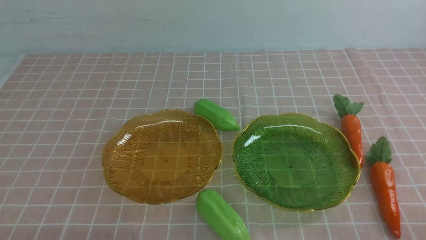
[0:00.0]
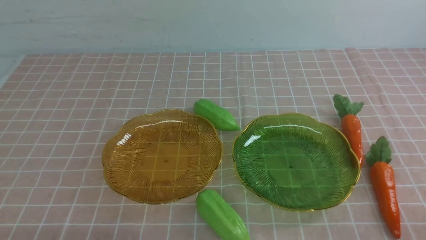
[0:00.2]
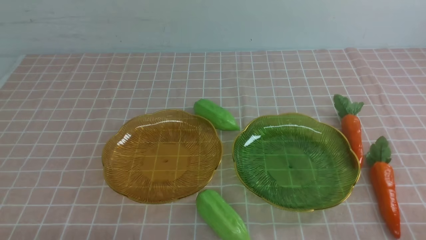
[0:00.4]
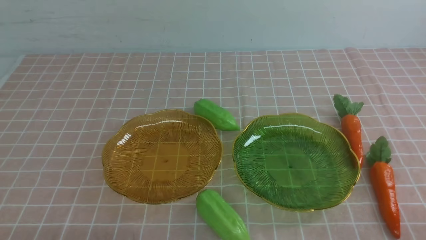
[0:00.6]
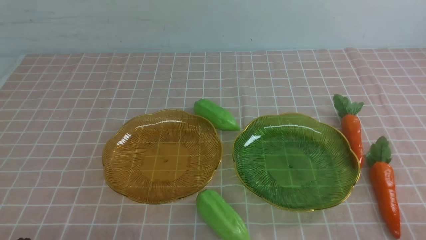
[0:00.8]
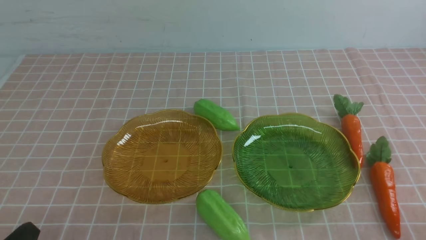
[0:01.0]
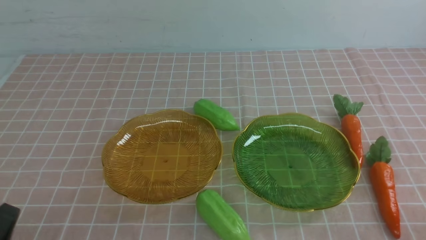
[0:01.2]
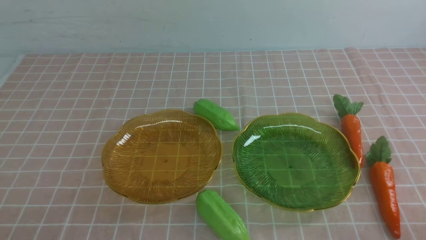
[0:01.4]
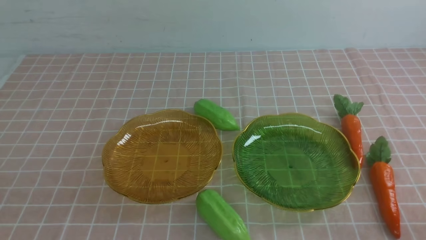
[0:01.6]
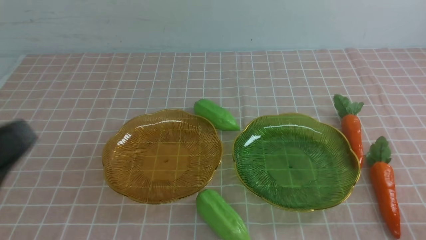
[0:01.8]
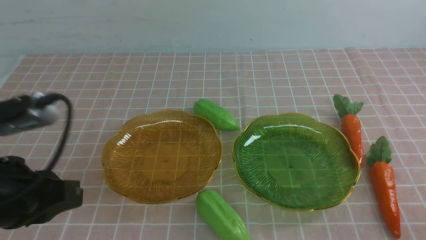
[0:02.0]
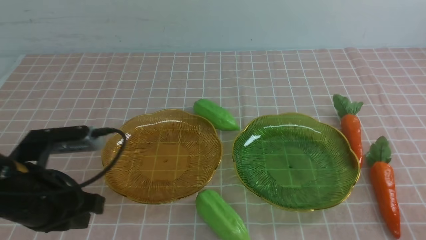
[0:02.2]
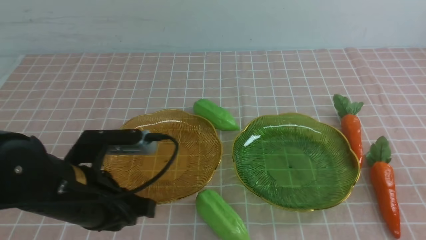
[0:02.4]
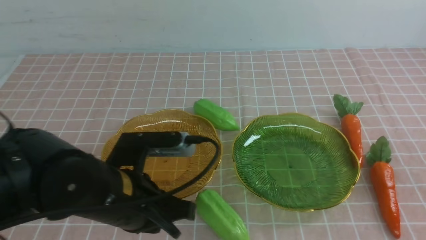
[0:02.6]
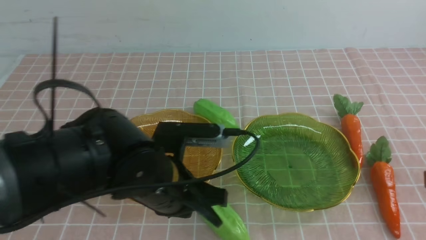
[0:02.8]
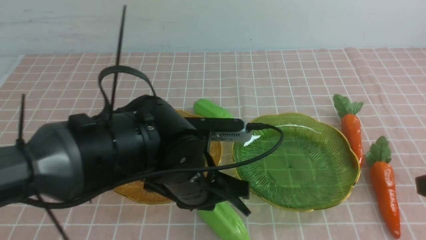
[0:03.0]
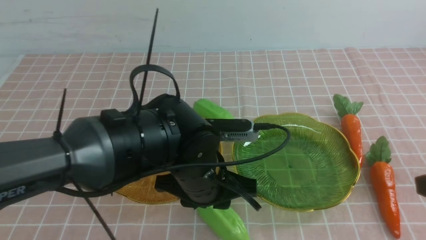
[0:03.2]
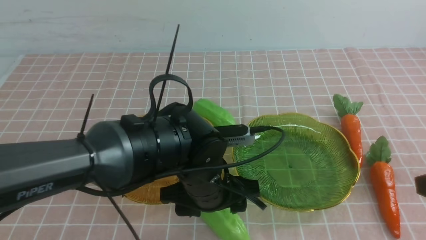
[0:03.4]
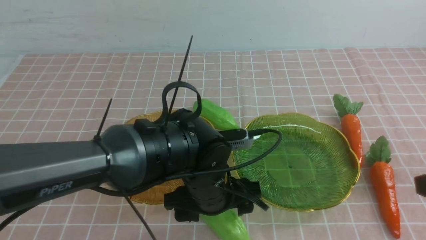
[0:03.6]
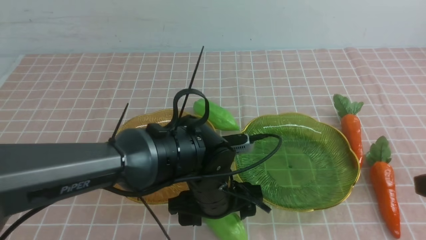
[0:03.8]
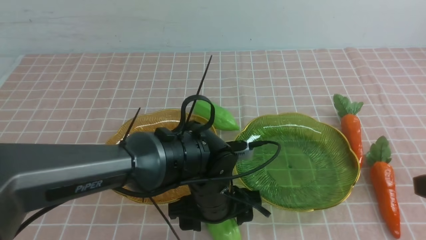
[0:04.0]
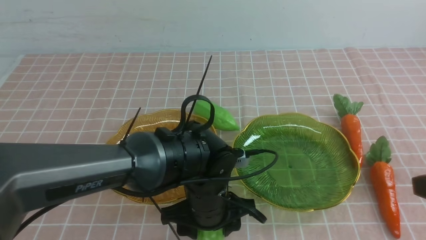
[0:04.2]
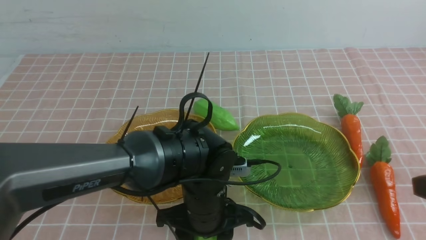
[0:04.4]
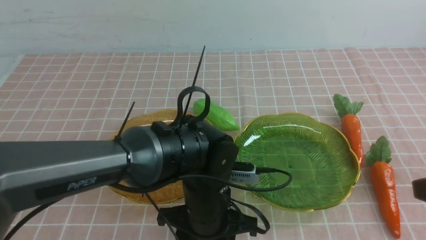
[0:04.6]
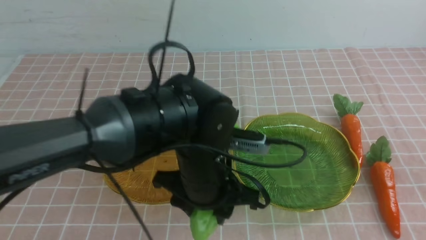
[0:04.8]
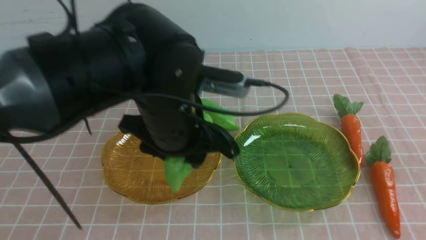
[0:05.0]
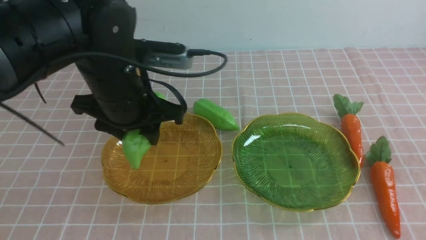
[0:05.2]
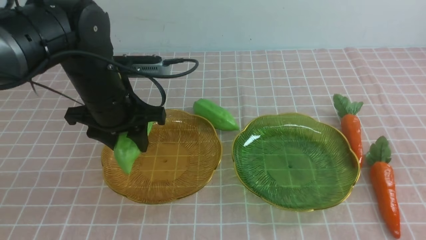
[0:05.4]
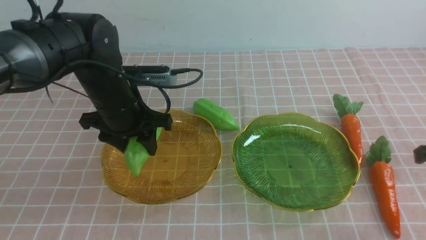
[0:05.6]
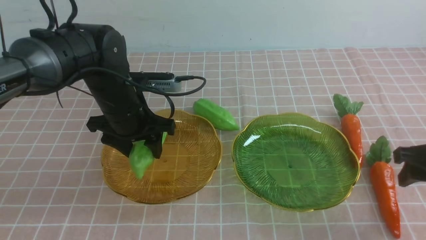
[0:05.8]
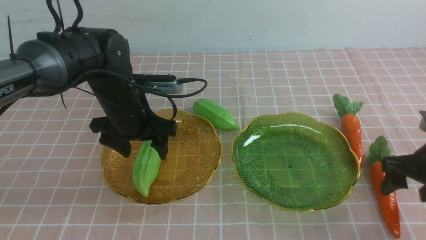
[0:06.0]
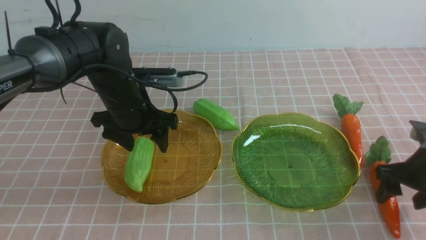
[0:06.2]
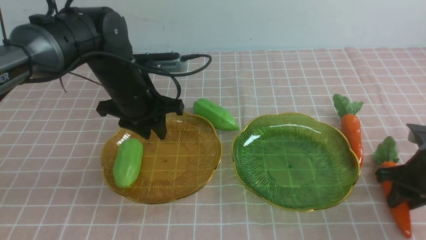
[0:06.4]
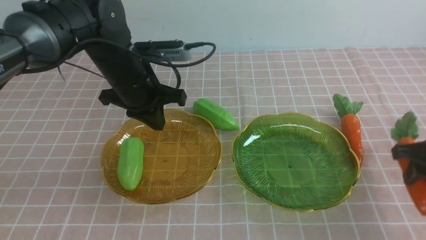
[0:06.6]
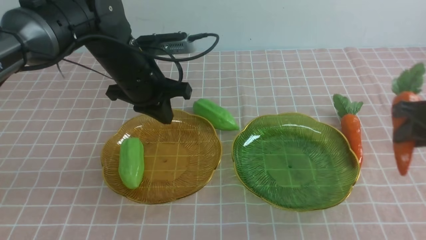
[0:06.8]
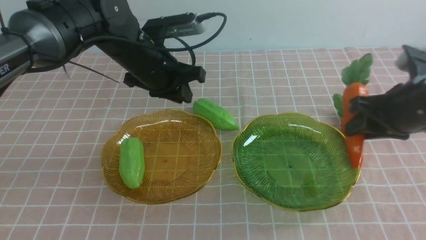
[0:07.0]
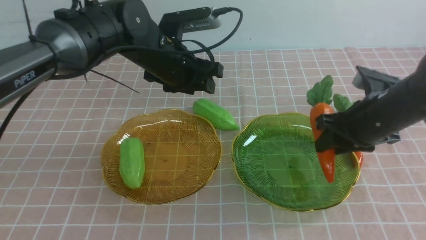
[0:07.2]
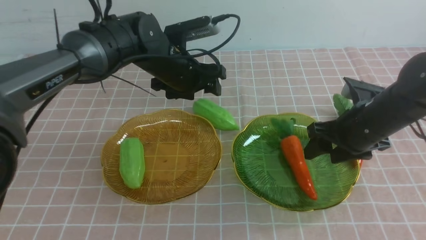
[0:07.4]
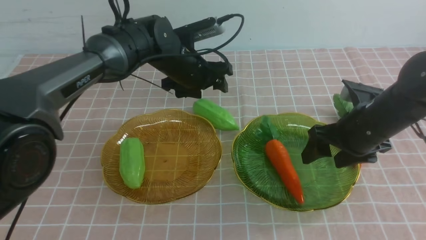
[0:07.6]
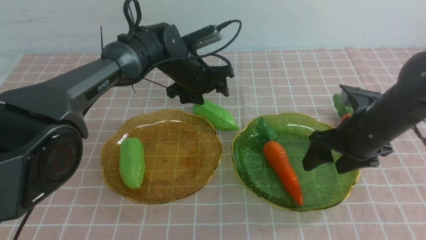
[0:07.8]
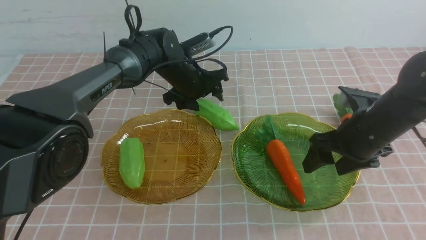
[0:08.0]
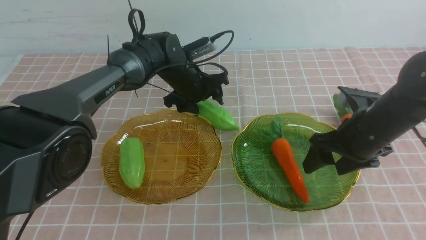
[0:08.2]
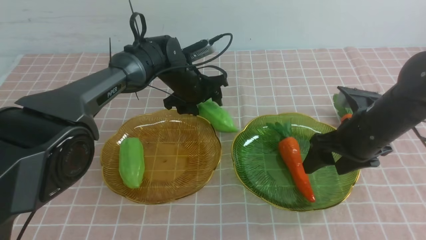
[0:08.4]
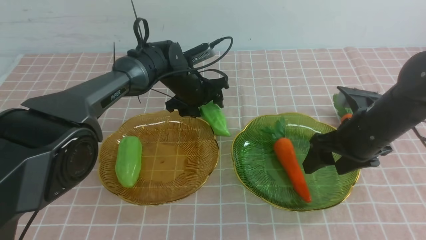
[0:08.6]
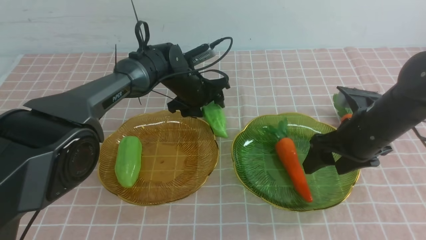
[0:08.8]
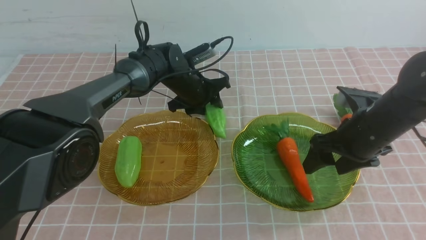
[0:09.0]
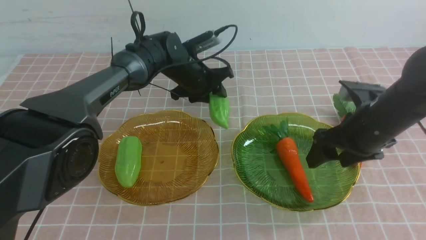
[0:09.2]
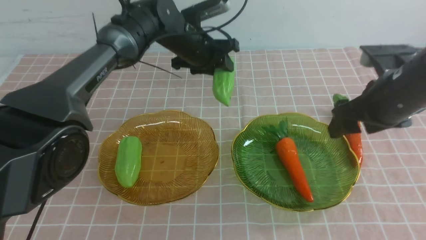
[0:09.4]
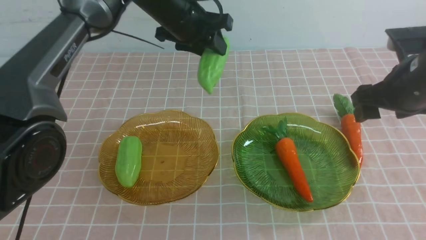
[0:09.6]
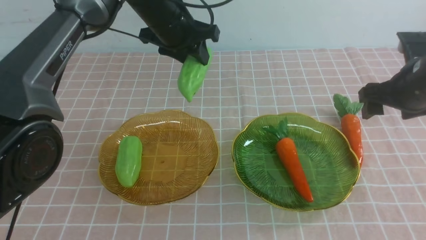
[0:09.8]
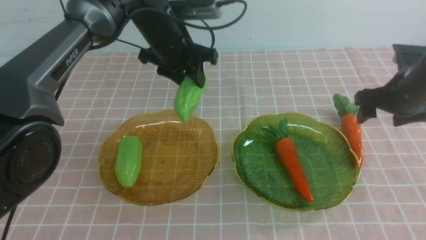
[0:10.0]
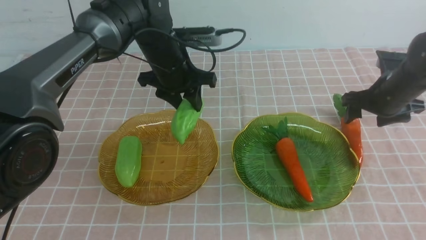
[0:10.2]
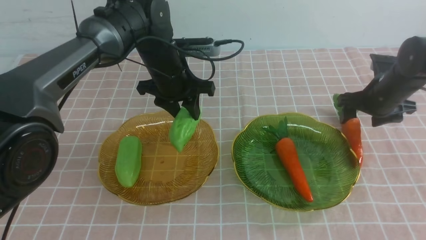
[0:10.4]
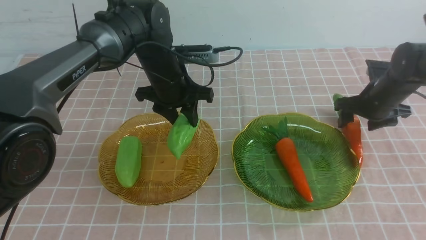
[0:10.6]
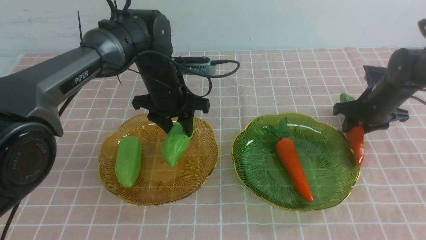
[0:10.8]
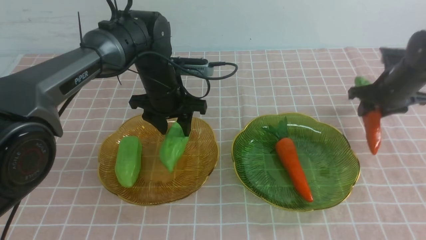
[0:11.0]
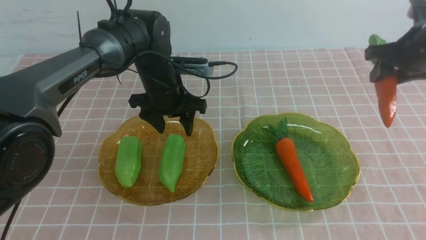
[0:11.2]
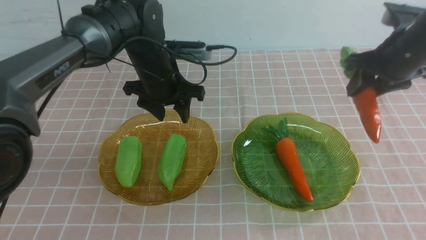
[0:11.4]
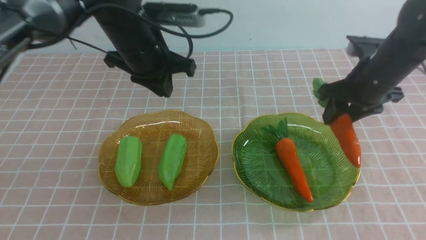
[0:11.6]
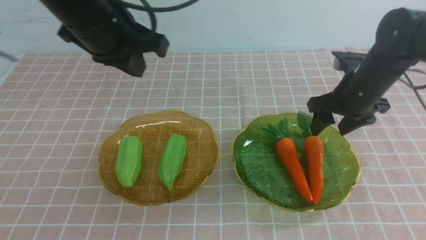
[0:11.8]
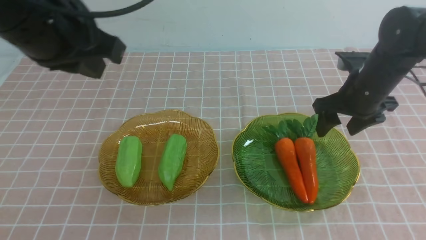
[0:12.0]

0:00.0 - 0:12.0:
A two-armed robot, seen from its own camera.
Step, 0:00.0 - 0:05.8: use the left arm to grab a chayote and put it into the left plate.
Step, 0:06.0 - 0:07.2: use the right arm to grab a carrot and put it into the right plate.
Step, 0:07.4 - 0:10.0: use the left arm to grab a chayote and put it into the left plate.
Step, 0:10.2 - 0:11.8: use the right arm to grab a carrot and put it into the right plate.
0:01.6 - 0:03.0: The left gripper goes approximately 30 cm to the right, forward and downward, and opens. Meanwhile the right gripper shifts approximately 15 cm upward and forward.
0:03.0 - 0:04.4: The left gripper travels upward by roughly 5 cm, and opens, then closes again.
0:04.4 - 0:06.0: The right gripper heads downward and forward, covering approximately 20 cm, and opens up. Meanwhile the left gripper is displaced forward and to the left by approximately 15 cm, and opens, then closes once more.
0:06.0 - 0:07.6: The left gripper goes roughly 10 cm forward and to the right, and closes and opens again. Meanwhile the right gripper is displaced to the left by some 10 cm, and opens up.
0:07.6 - 0:09.0: The left gripper heads downward, covering about 5 cm.
0:09.0 - 0:10.4: The right gripper is displaced forward and to the right by some 15 cm. The left gripper heads upward and backward, covering roughly 10 cm.
0:10.4 - 0:12.0: The right gripper goes about 20 cm upward, backward and to the left, and closes its fingers. Meanwhile the left gripper is displaced backward, upward and to the left by roughly 30 cm, and closes up.

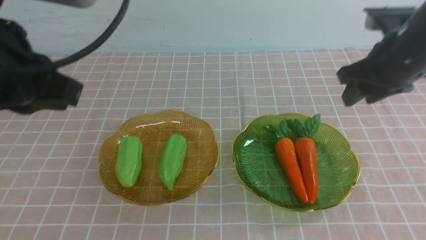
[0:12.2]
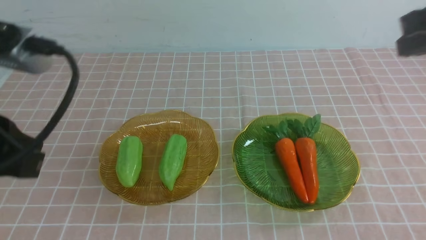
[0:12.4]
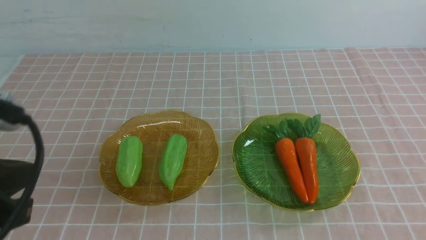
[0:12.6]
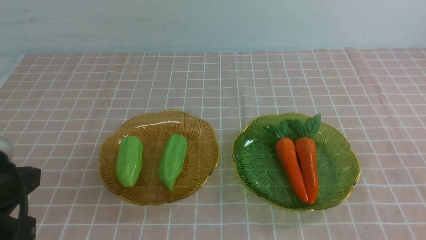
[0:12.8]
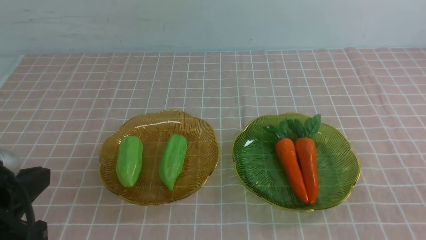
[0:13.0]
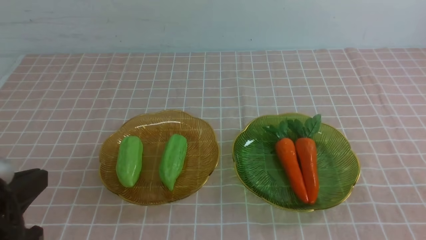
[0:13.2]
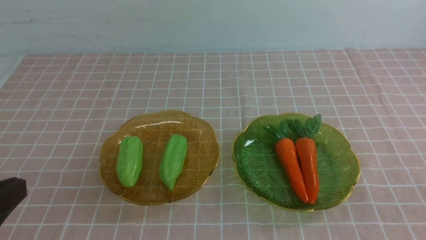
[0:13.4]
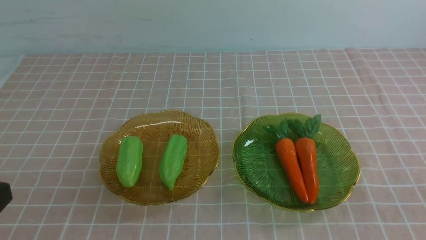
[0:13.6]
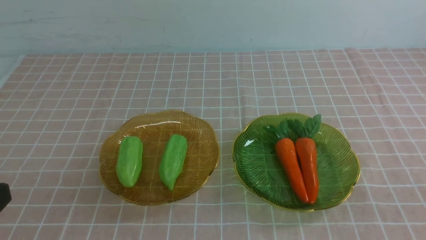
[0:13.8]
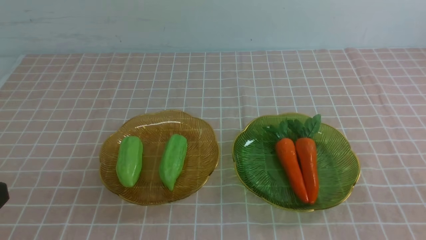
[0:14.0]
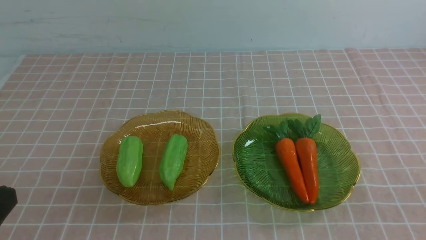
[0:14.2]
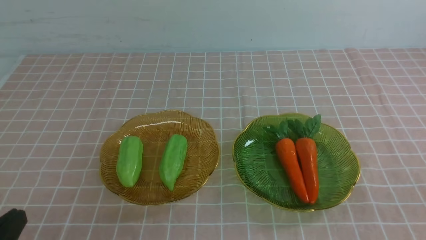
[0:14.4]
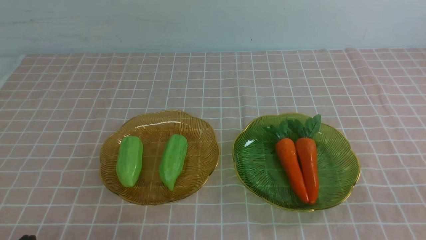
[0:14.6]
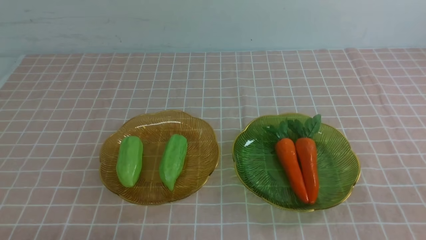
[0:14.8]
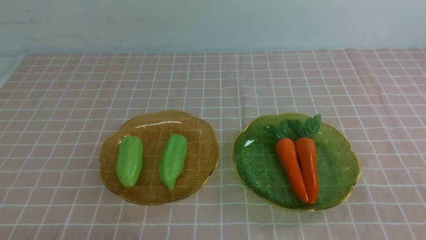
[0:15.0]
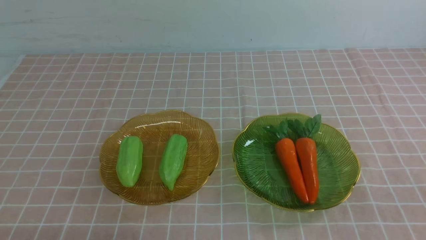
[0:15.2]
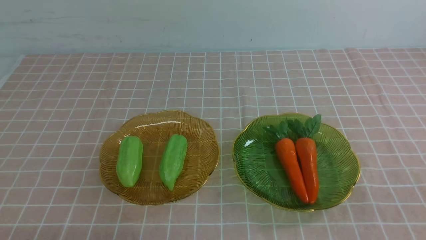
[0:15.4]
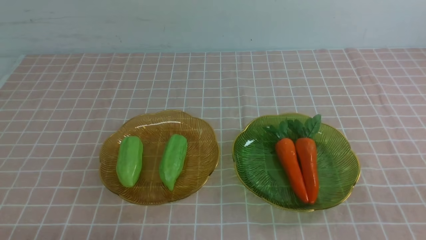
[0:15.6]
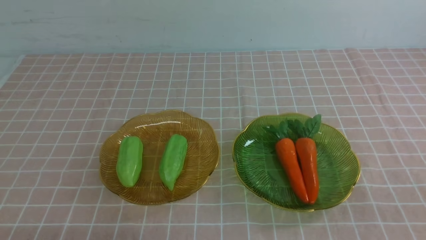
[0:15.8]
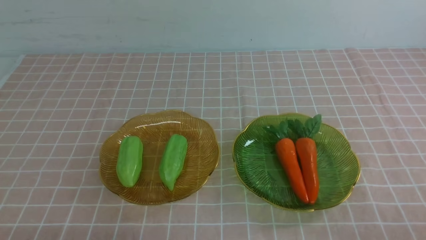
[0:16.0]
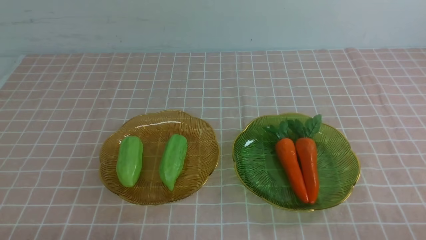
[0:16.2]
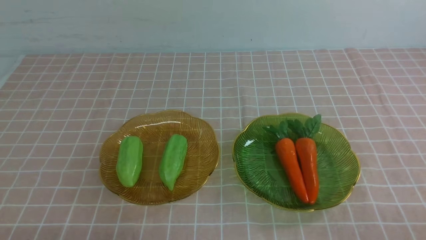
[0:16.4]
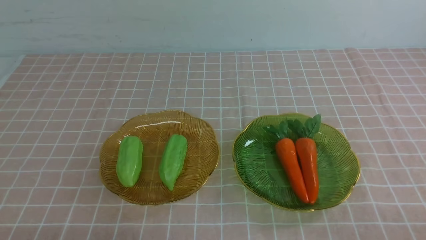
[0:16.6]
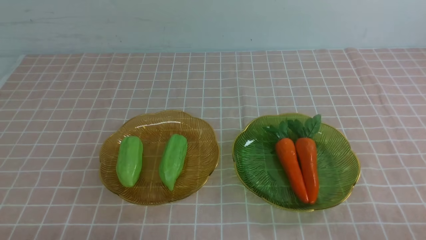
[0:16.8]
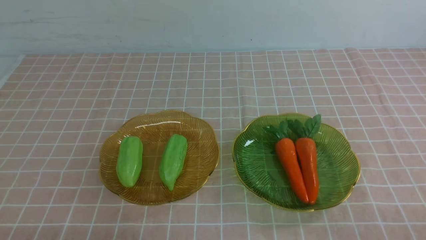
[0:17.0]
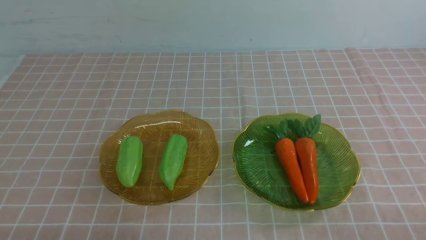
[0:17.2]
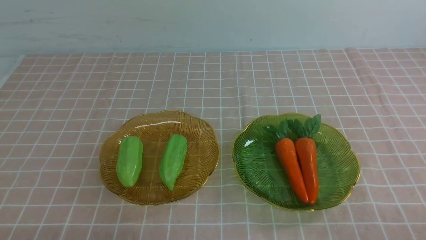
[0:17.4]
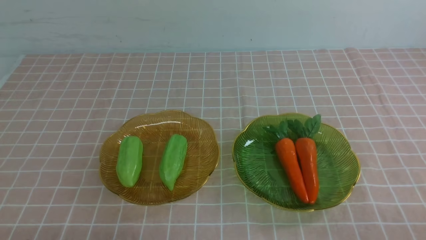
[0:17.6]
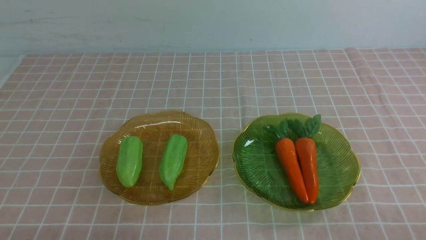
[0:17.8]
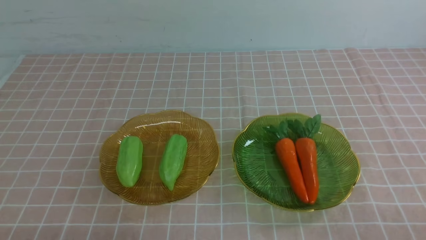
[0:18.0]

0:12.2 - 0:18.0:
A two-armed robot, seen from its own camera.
0:12.2 - 0:13.6: The left gripper heads backward and downward, covering about 10 cm, while the right gripper shifts approximately 25 cm backward and downward.
0:16.6 - 0:18.0: Both grippers stay put.
